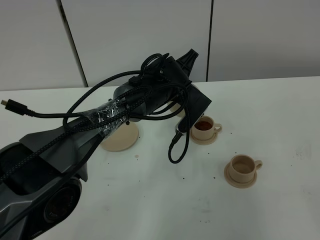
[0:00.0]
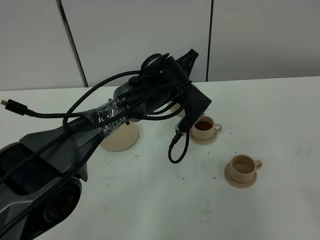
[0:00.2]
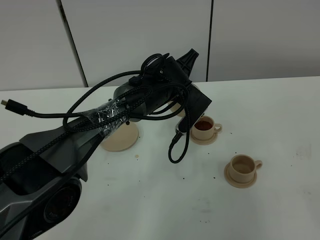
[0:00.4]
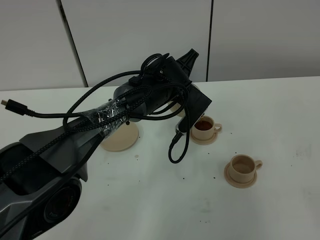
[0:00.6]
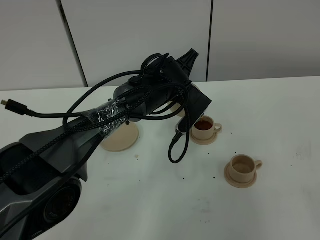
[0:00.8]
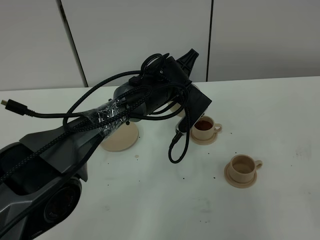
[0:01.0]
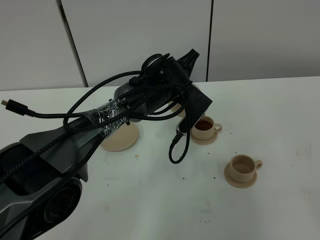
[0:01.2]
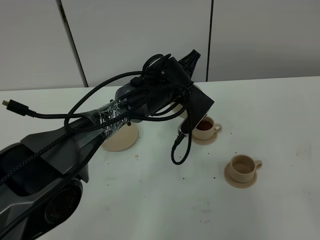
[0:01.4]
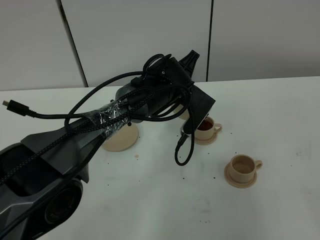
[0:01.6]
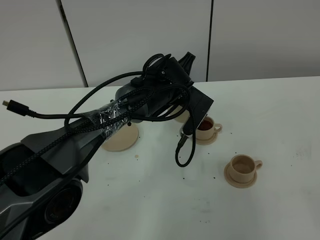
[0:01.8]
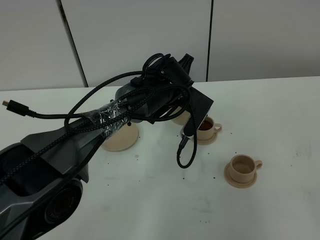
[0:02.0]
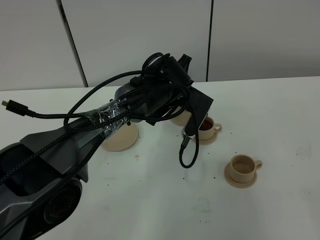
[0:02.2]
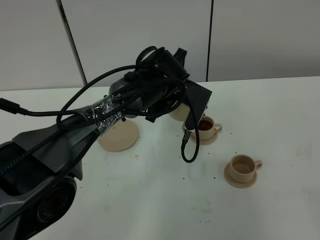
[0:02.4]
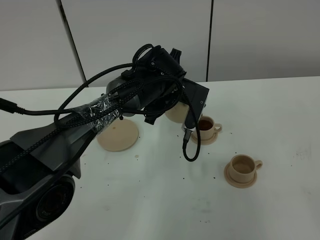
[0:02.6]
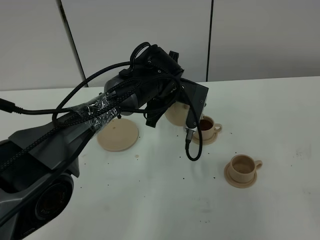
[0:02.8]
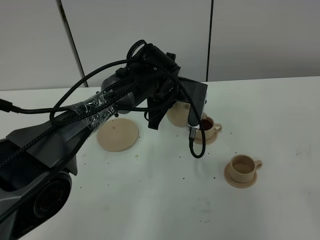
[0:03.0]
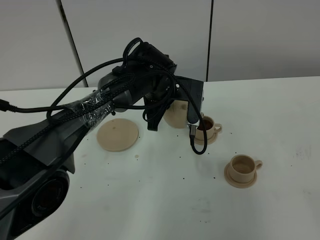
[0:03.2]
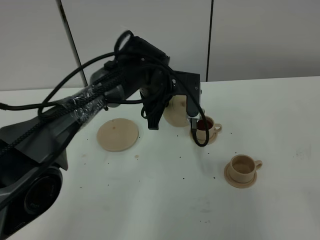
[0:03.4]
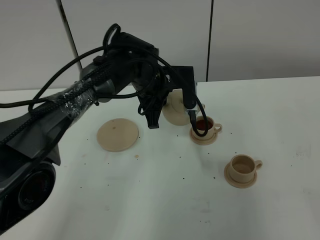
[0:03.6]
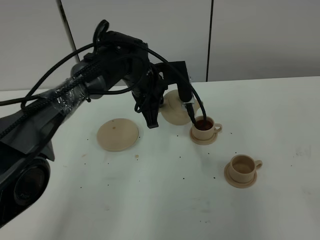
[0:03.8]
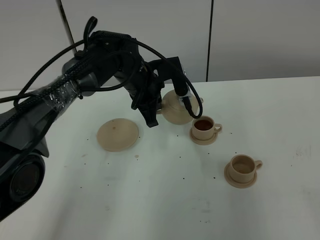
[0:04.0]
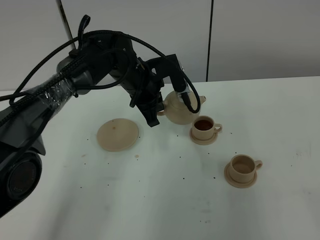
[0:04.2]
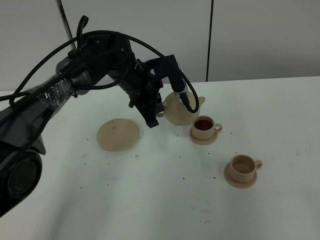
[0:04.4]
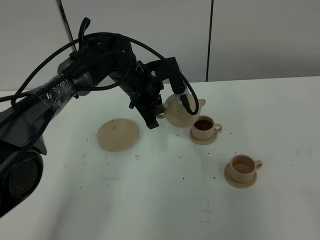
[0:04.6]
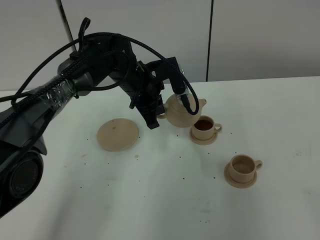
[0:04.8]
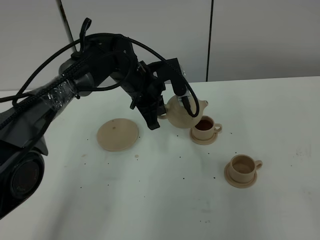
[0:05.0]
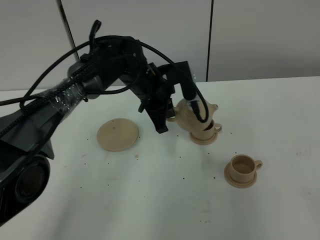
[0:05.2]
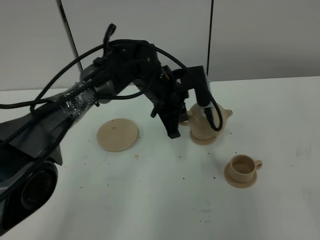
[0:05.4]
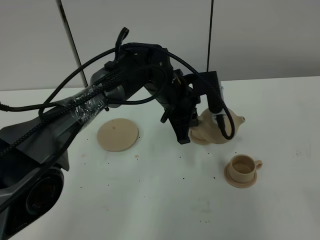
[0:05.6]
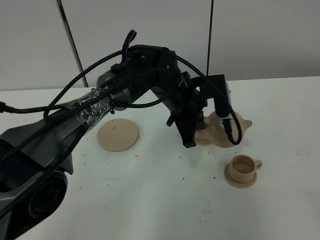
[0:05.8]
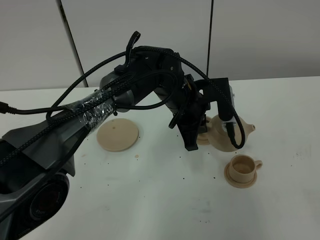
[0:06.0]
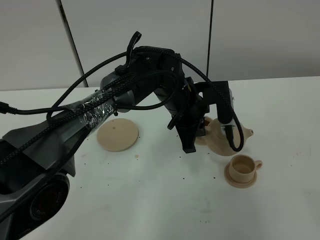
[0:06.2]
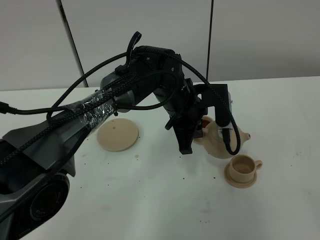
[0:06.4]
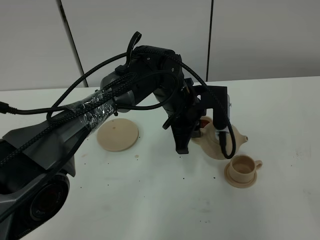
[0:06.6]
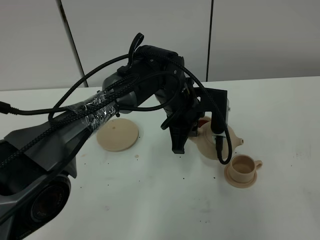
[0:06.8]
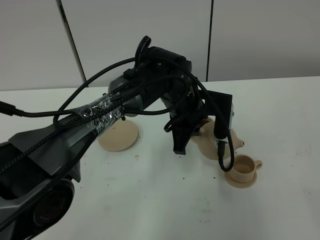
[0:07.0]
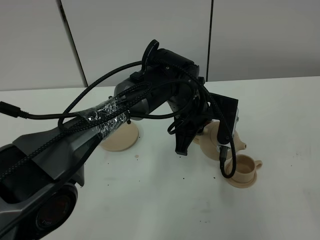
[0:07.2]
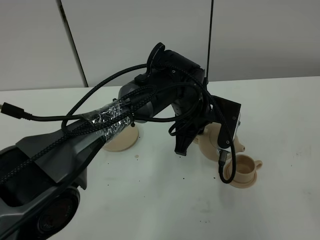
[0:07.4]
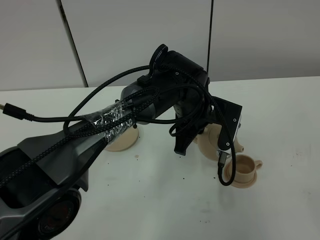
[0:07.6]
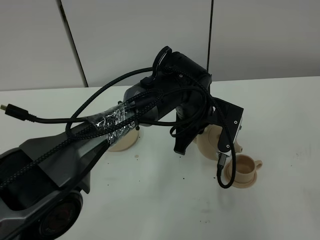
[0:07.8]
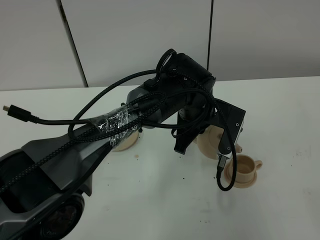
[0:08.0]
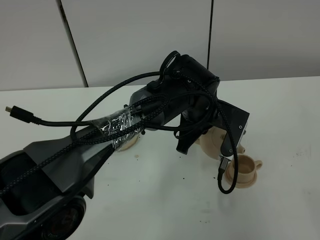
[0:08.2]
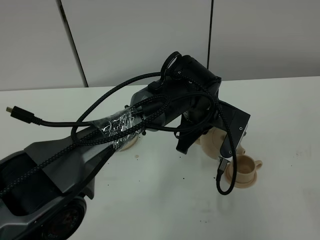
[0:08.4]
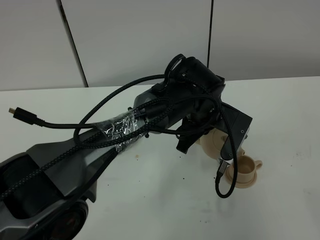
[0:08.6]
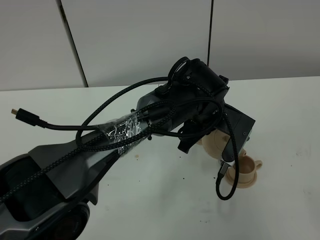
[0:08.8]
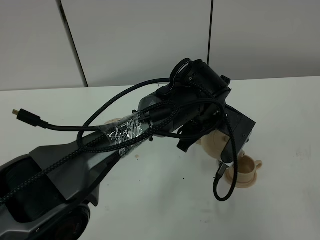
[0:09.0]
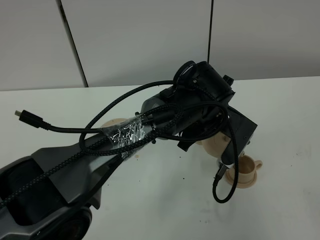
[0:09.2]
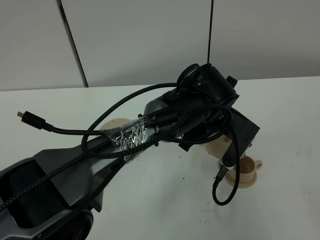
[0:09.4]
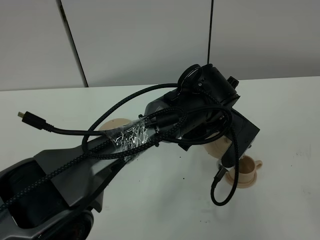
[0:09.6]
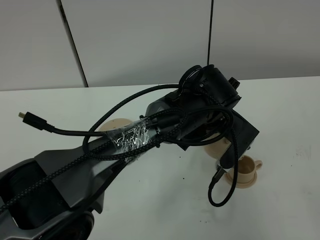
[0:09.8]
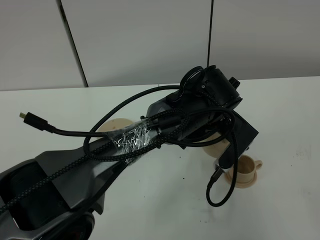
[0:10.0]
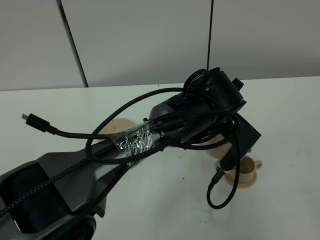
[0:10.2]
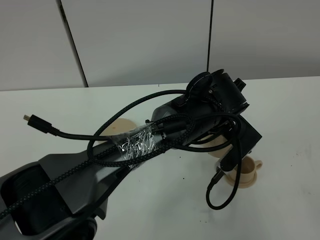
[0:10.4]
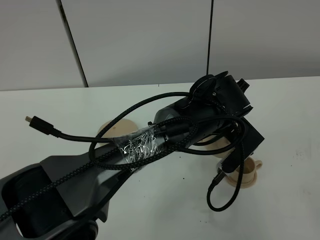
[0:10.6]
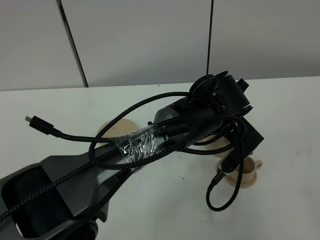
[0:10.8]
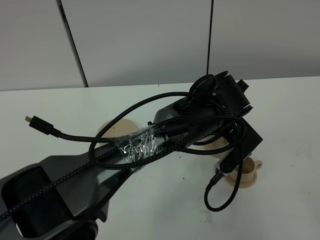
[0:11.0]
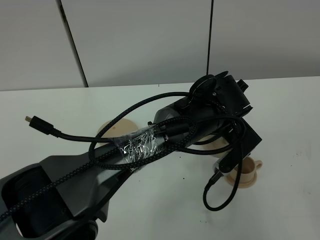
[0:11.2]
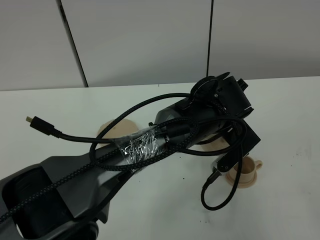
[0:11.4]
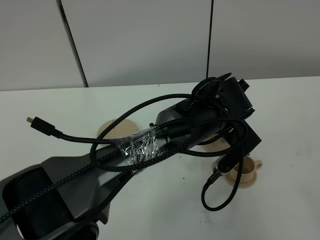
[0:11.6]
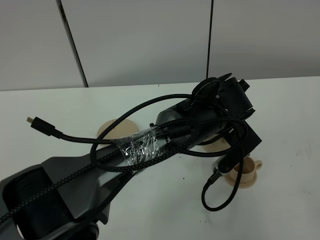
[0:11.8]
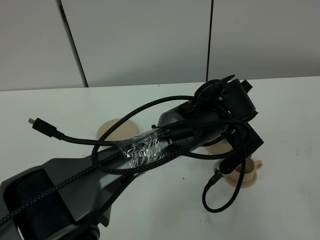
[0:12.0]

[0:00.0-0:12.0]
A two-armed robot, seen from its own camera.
Task of the whole recording: grasp the brown teapot and pour the tea into the two brown teacups one by one, put the brown teapot back in its original place.
0:00.0 to 0:01.6: Neither gripper changes place.
0:03.0 to 0:04.4: The left gripper travels to the left by approximately 5 cm.
0:04.4 to 0:06.0: The left gripper heads to the right and backward, covering about 10 cm.
0:07.6 to 0:09.0: The grippers make only small movements.
0:09.0 to 0:10.4: There are only small adjustments of the grippers.
0:10.4 to 0:12.0: There are only small adjustments of the grippers.

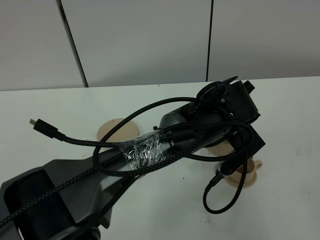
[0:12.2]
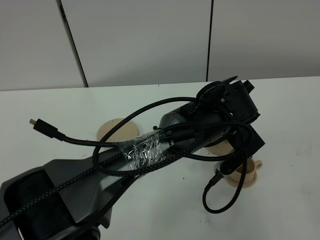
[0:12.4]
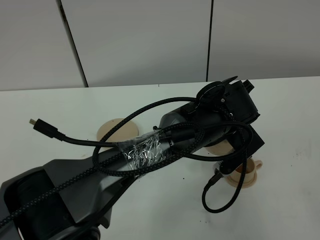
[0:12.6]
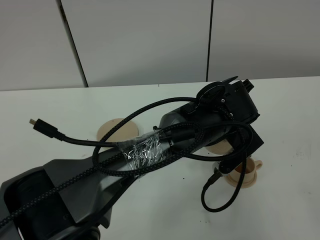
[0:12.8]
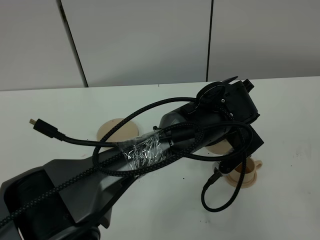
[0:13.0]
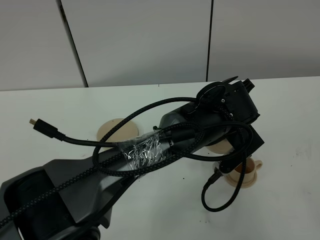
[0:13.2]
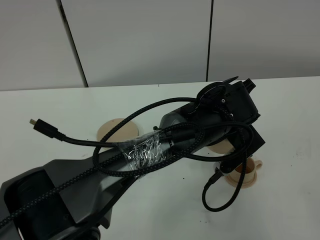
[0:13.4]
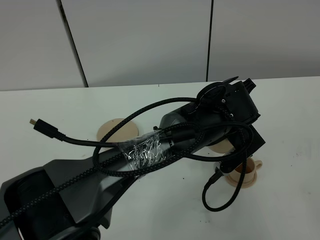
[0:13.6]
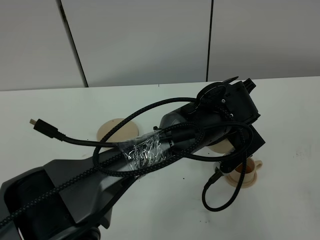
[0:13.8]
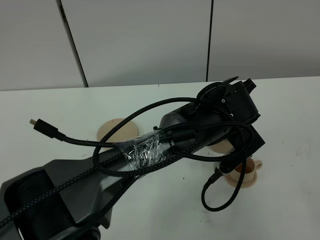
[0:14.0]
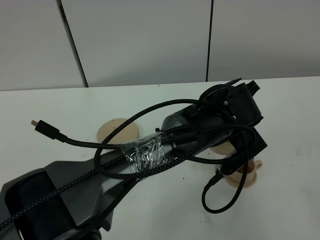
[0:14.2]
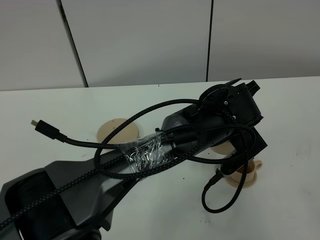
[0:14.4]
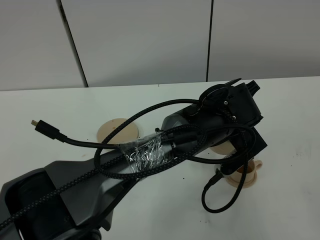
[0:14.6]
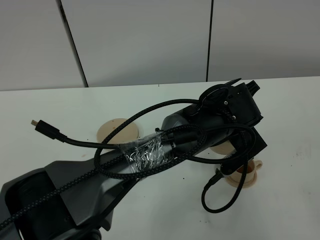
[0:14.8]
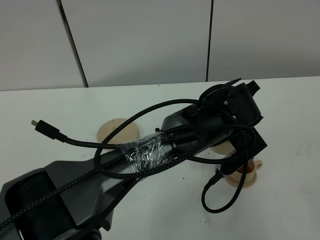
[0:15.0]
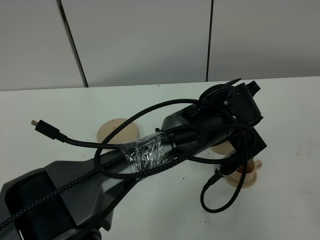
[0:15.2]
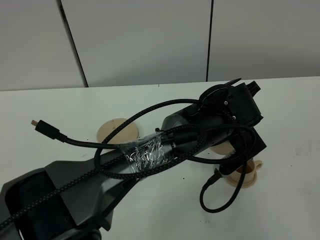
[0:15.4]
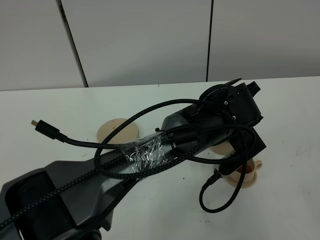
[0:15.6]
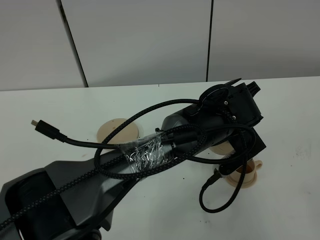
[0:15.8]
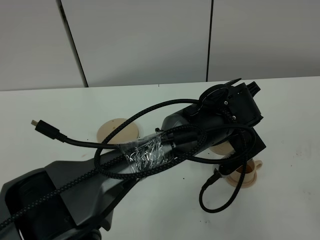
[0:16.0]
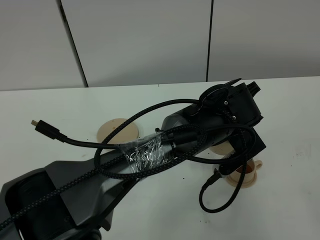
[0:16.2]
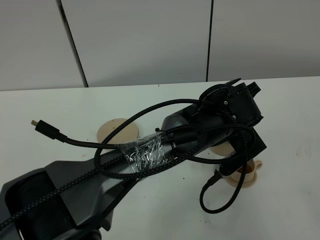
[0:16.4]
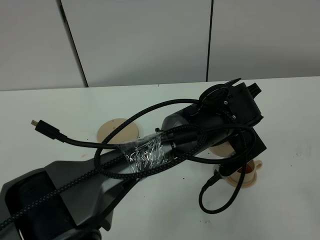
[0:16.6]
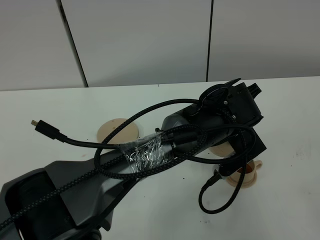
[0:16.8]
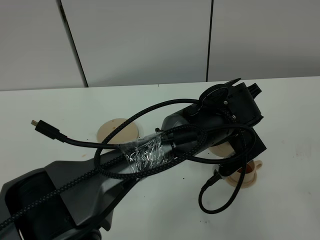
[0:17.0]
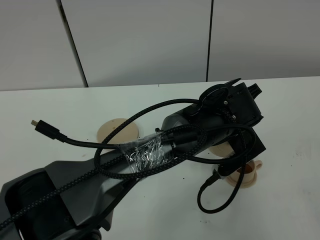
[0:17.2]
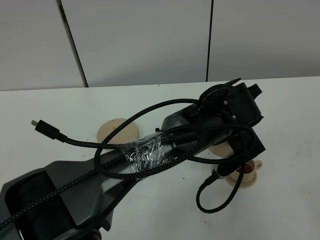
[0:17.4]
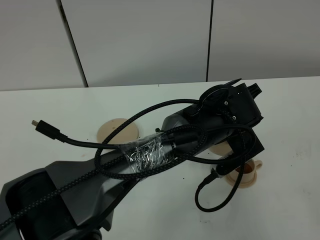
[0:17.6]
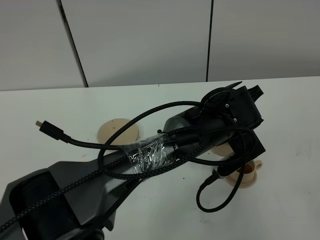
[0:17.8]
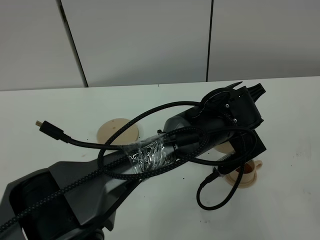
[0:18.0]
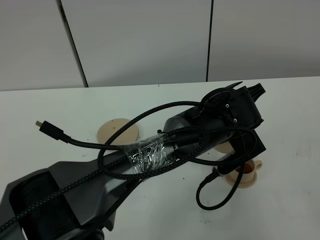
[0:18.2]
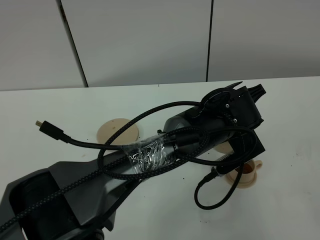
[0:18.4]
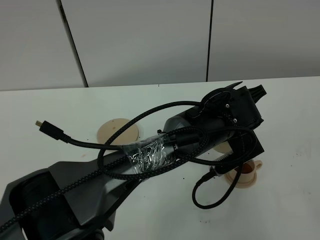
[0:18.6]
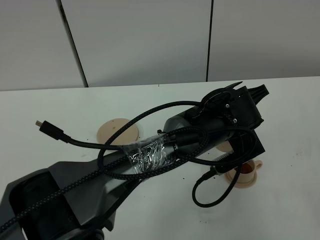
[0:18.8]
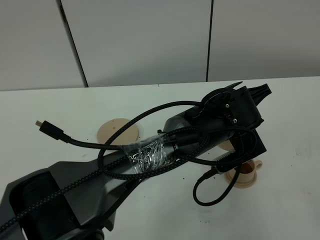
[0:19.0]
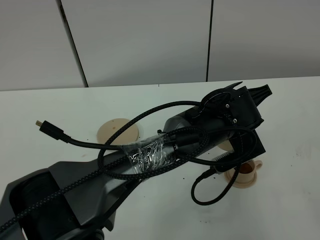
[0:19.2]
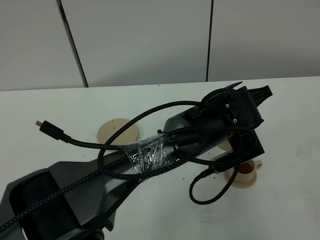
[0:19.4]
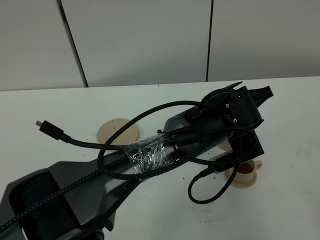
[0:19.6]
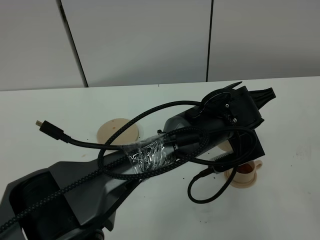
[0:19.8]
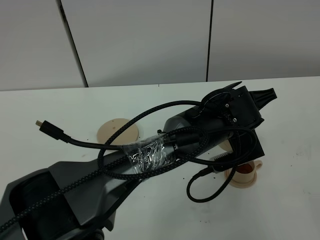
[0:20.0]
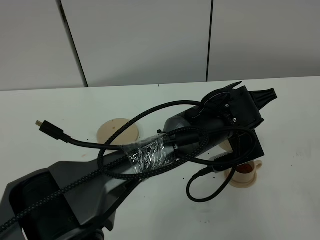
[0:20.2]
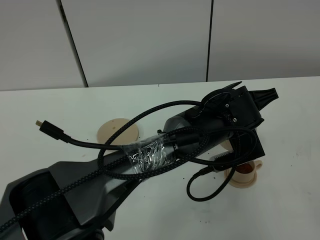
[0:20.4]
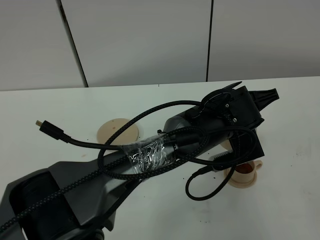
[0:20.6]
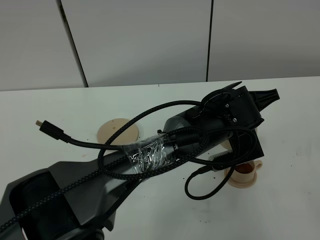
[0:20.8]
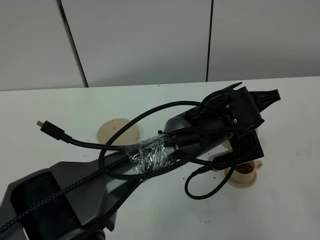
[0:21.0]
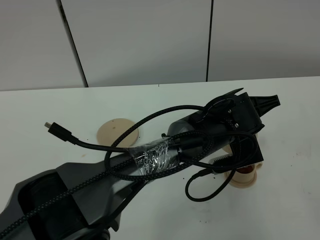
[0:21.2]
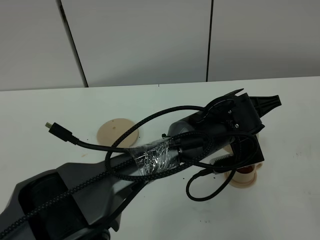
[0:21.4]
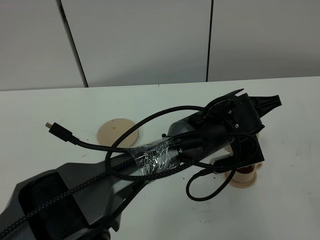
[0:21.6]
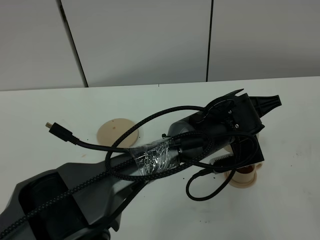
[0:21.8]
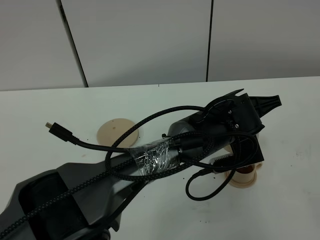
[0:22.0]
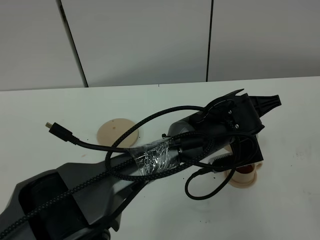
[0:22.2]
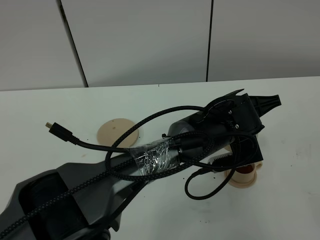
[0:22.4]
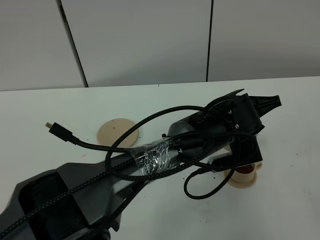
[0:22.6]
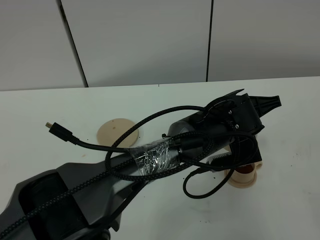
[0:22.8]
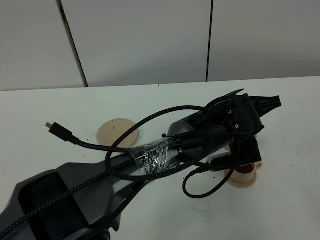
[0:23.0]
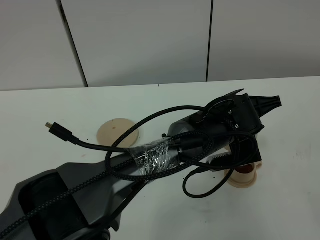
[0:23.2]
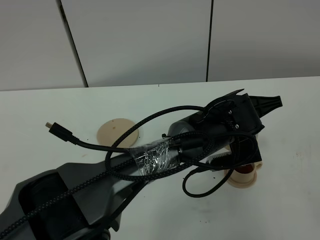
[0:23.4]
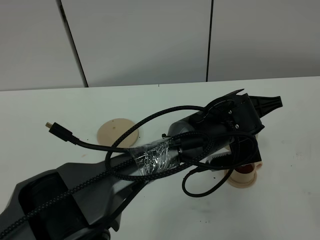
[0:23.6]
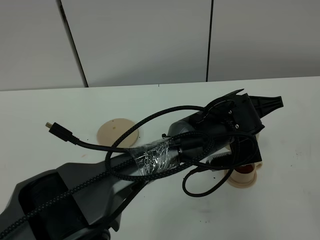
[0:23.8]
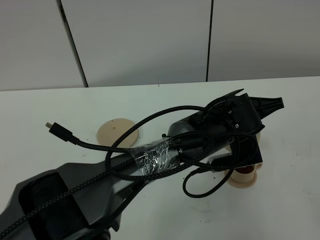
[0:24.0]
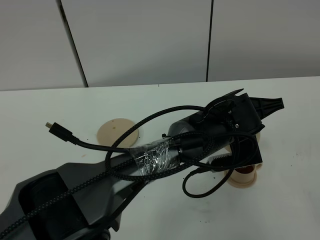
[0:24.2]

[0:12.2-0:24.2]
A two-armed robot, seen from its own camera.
Task of the whole recording: grasp the brown teapot and pour the tea into the two brown teacups one by one, put the brown teapot back in its original place.
0:12.2 to 0:15.2: The two grippers keep their place.
0:15.2 to 0:16.6: Both grippers stay put.
0:16.6 to 0:18.2: Neither gripper changes place.
0:18.2 to 0:21.2: The grippers stay close to where they were, moving slightly.
0:21.2 to 0:24.2: Neither gripper changes place.
